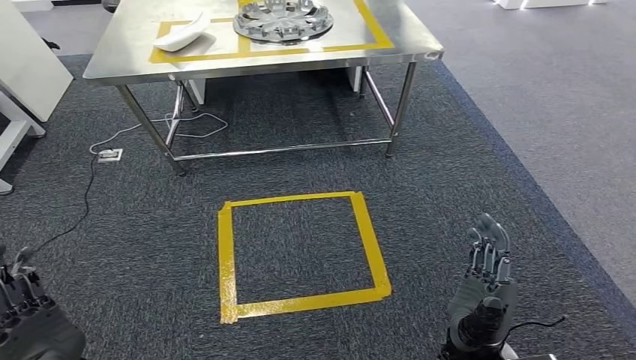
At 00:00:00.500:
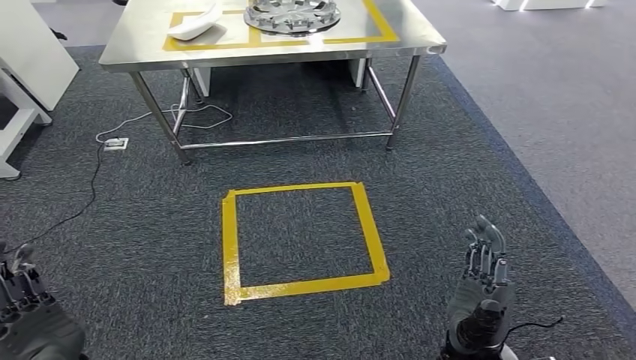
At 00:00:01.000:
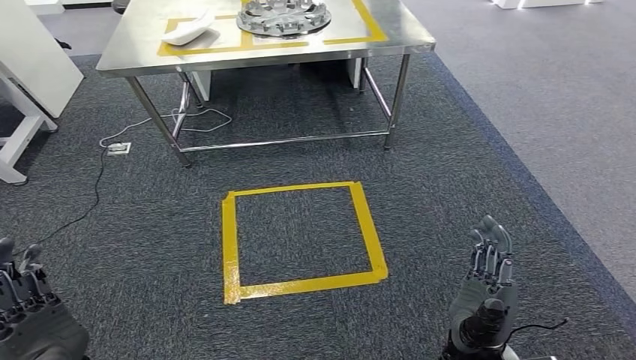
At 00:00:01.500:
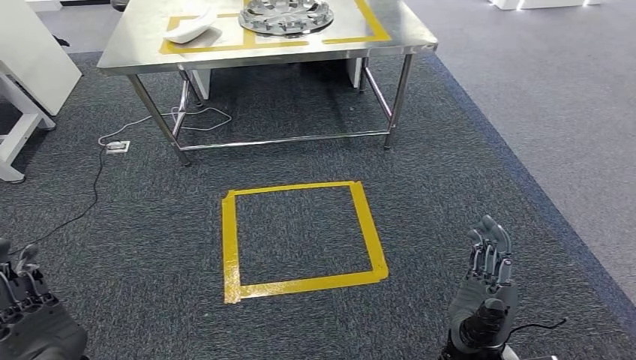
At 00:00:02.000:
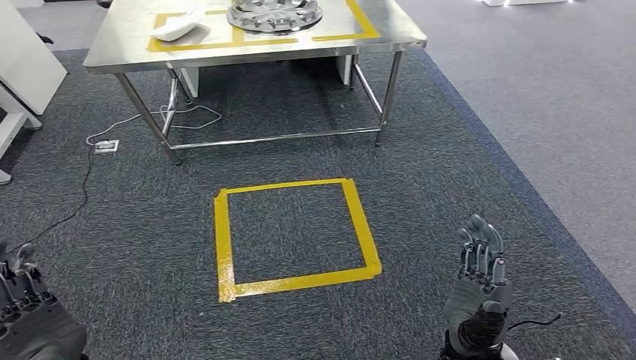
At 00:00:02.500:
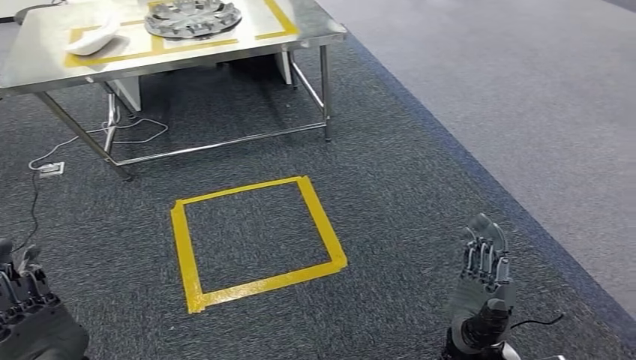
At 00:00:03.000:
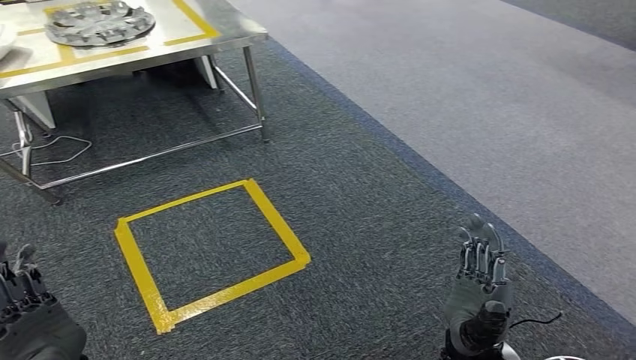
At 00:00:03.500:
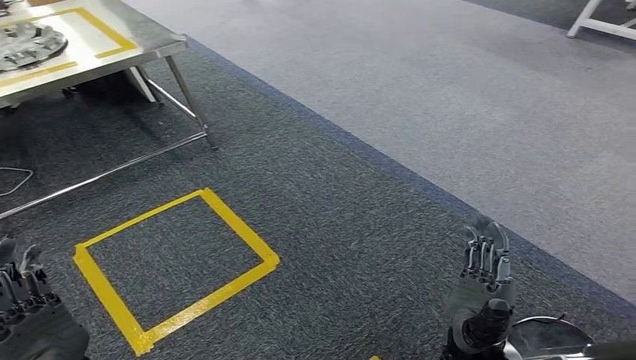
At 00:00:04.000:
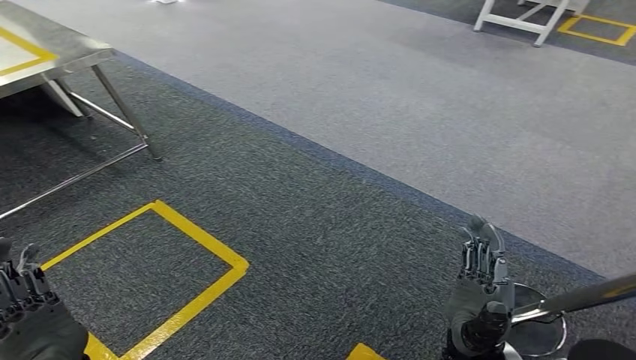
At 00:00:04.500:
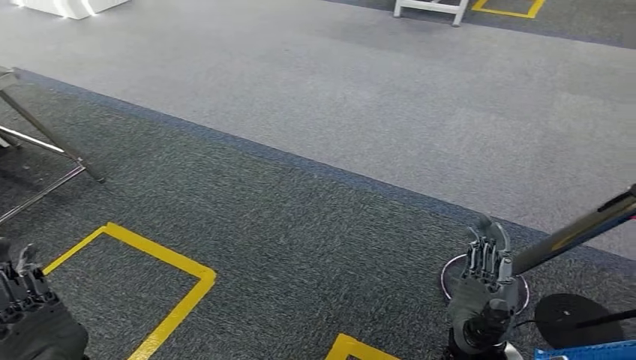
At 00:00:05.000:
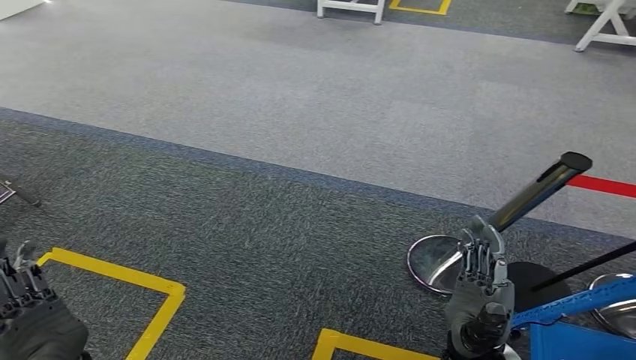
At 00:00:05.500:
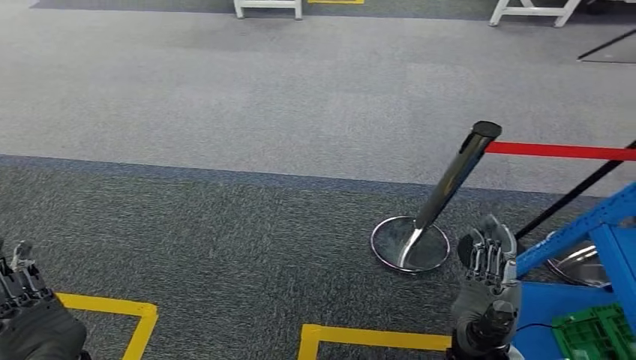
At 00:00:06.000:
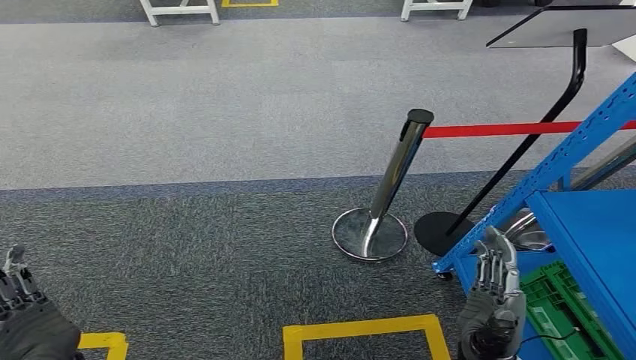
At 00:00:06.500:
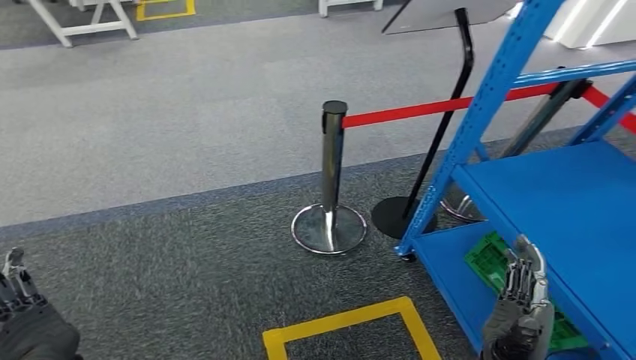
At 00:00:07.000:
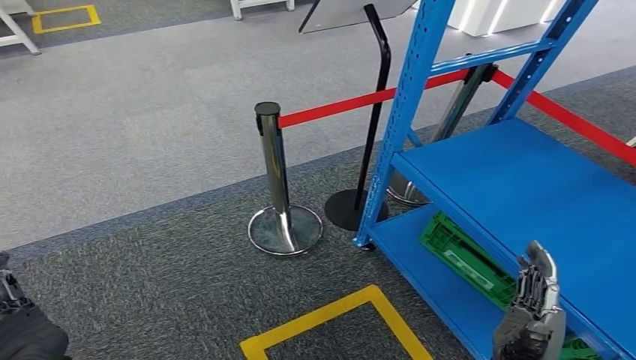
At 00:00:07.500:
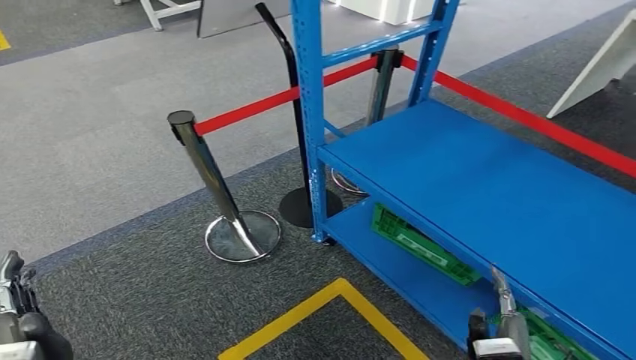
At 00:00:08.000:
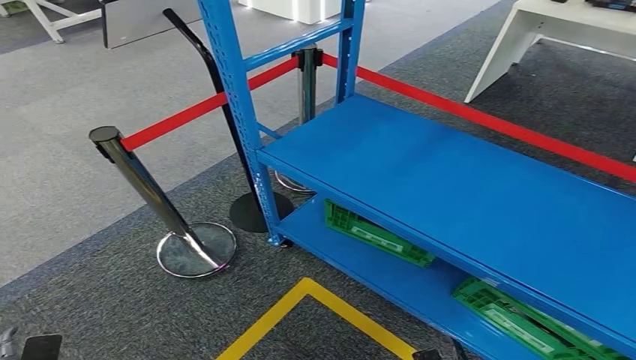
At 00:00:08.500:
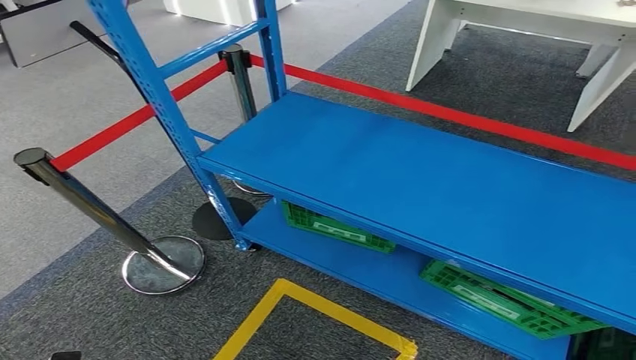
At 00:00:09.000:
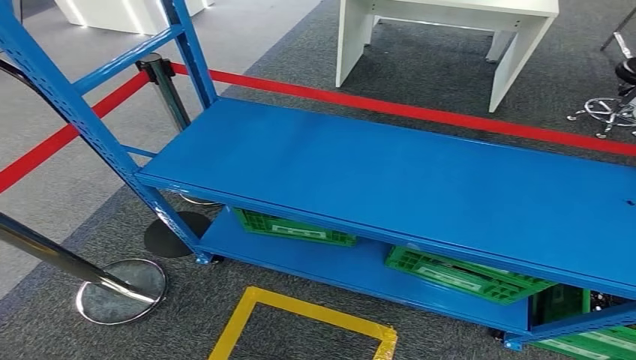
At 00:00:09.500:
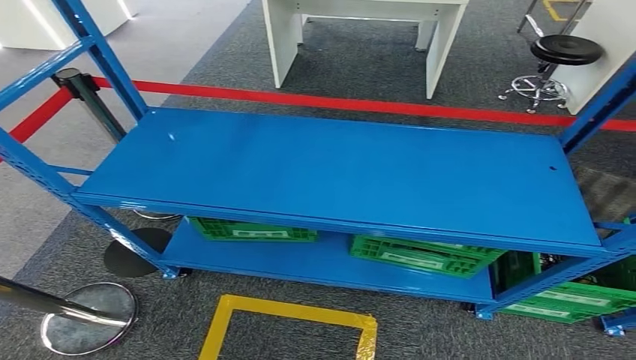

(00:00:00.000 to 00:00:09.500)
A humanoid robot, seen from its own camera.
Step, 00:00:00.000 - 00:00:09.500: Move to the initial position of the workbench.
00:00:00.000 - 00:00:02.000: Both hands stay about where they are.
